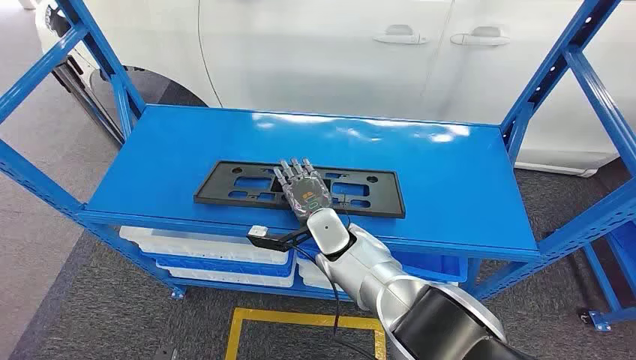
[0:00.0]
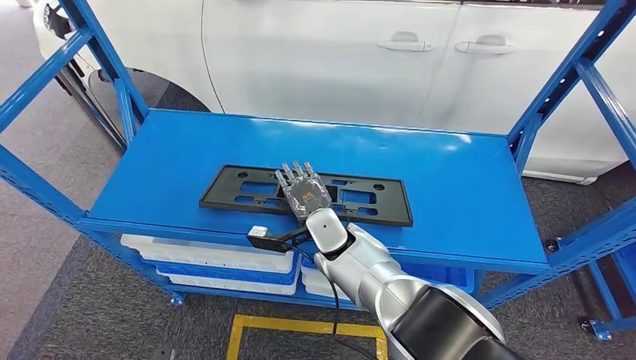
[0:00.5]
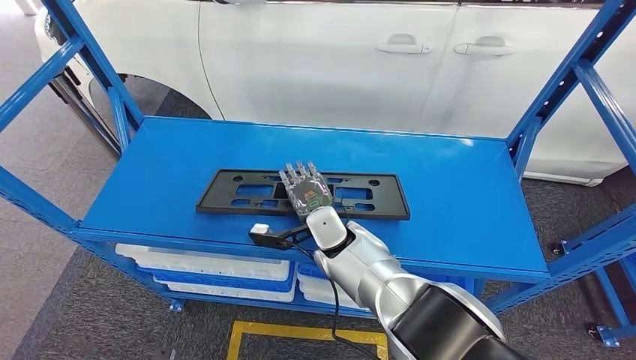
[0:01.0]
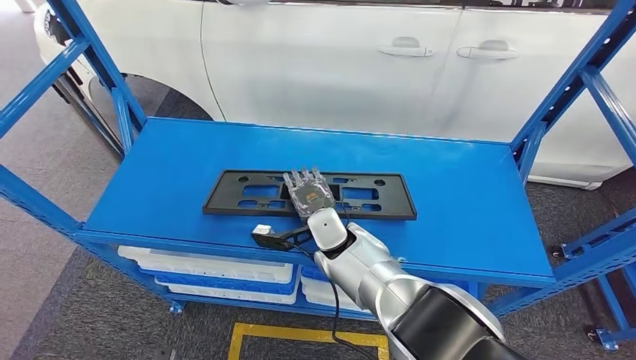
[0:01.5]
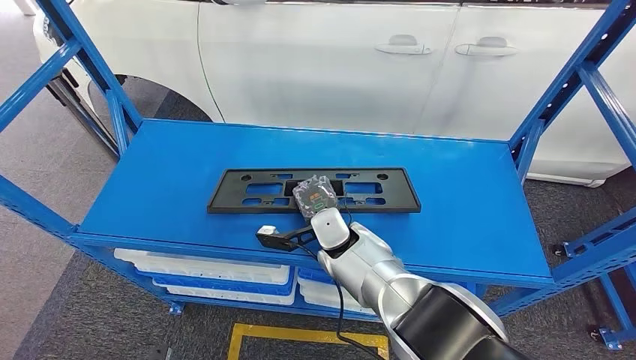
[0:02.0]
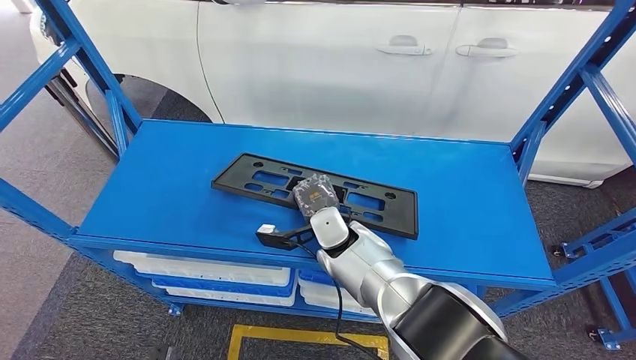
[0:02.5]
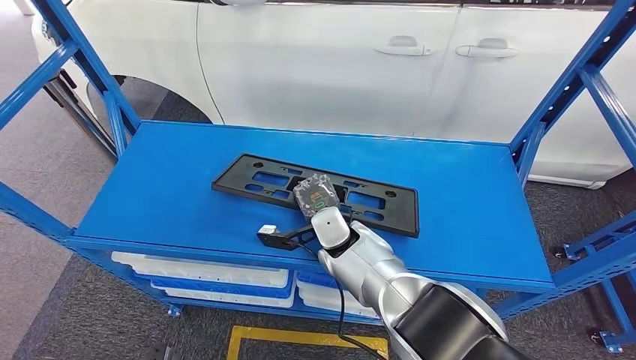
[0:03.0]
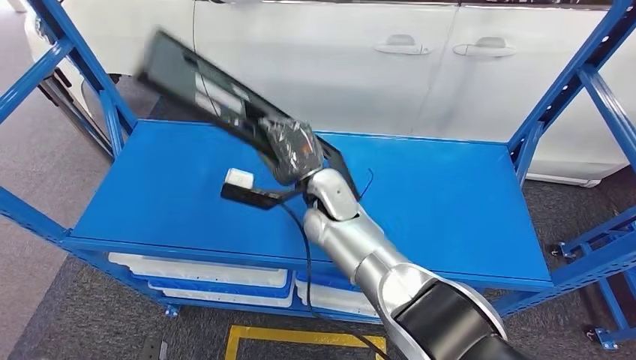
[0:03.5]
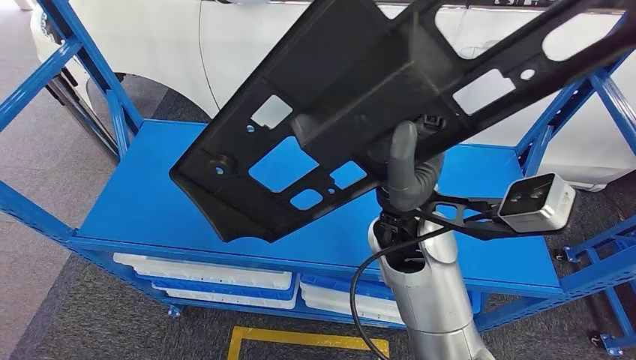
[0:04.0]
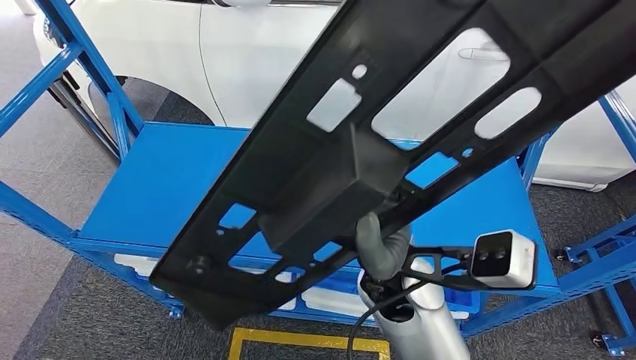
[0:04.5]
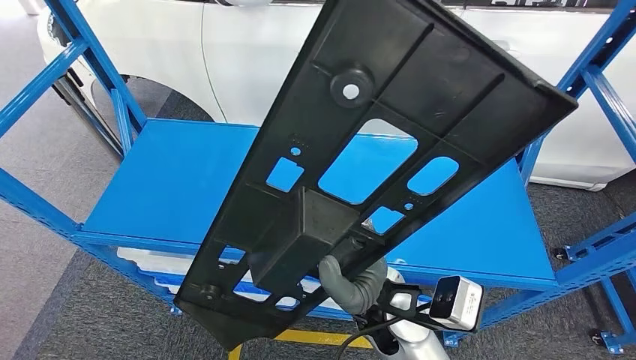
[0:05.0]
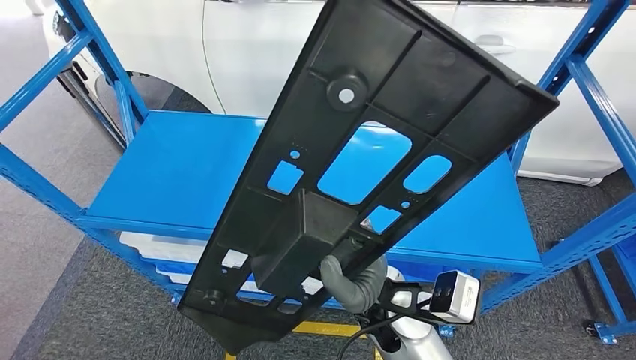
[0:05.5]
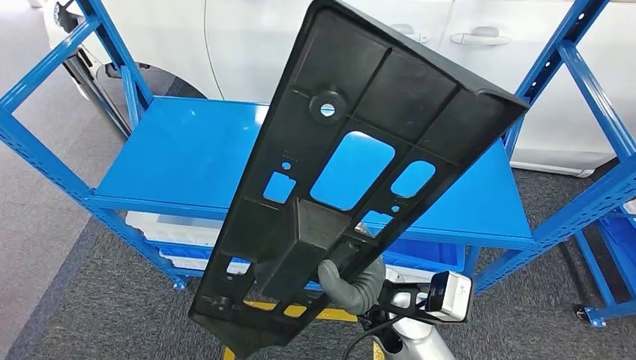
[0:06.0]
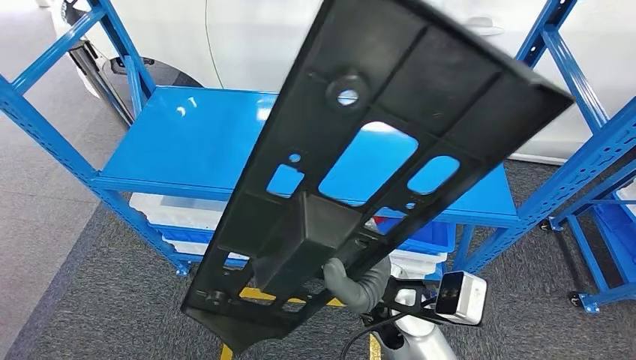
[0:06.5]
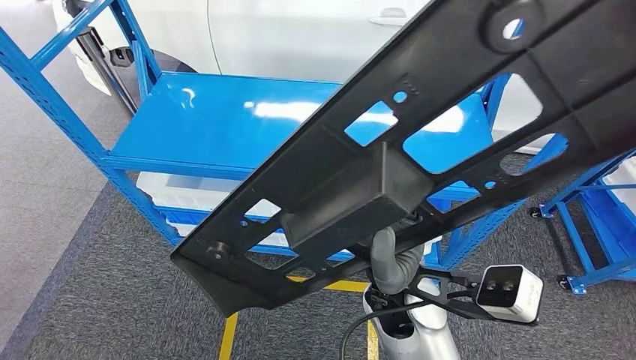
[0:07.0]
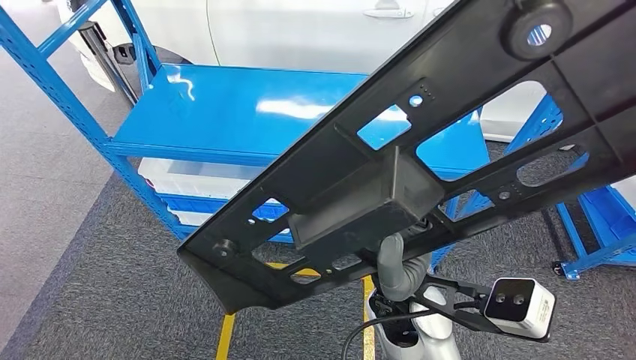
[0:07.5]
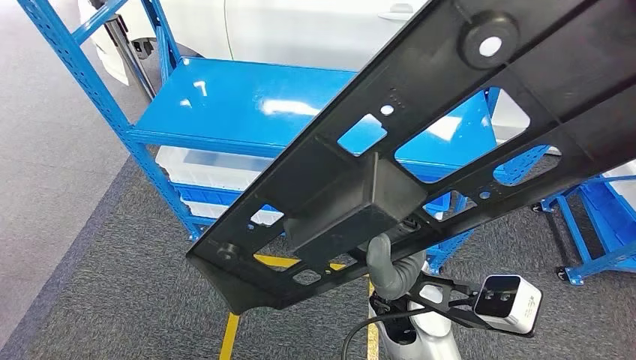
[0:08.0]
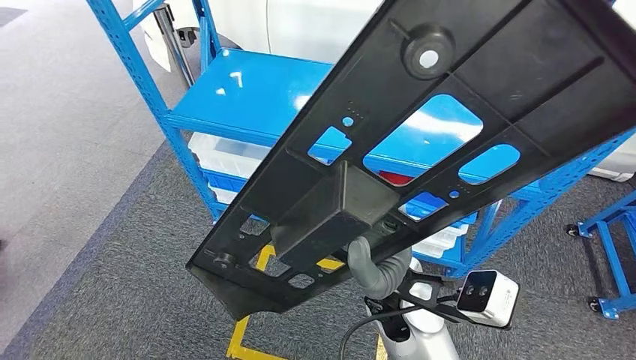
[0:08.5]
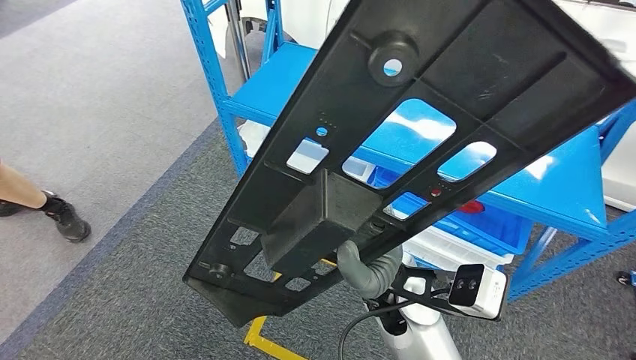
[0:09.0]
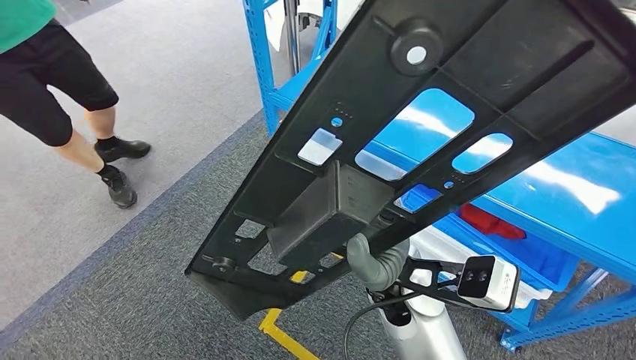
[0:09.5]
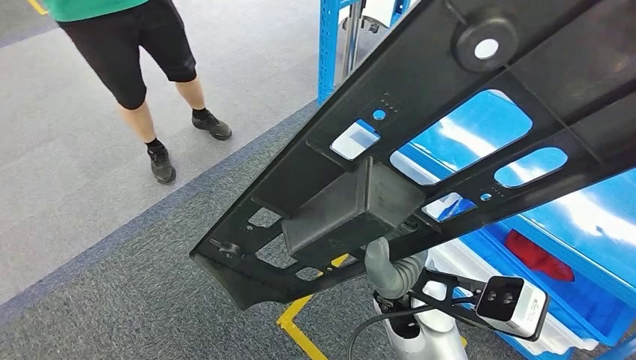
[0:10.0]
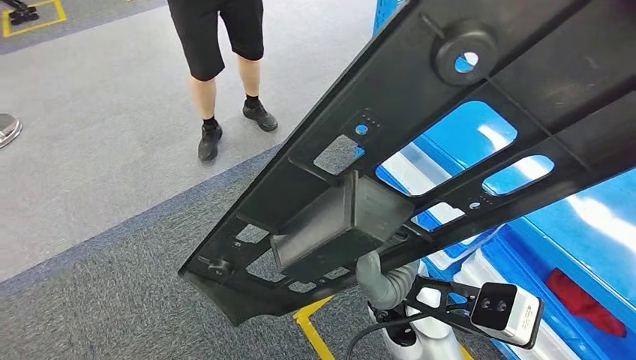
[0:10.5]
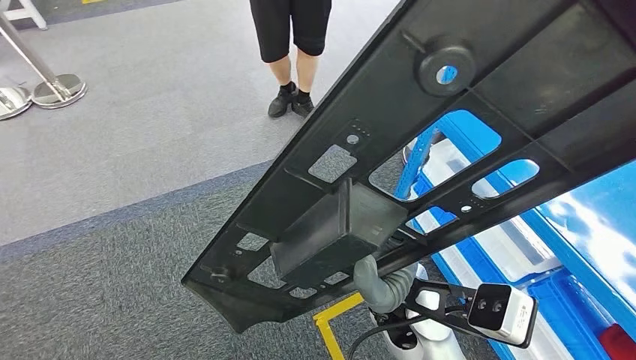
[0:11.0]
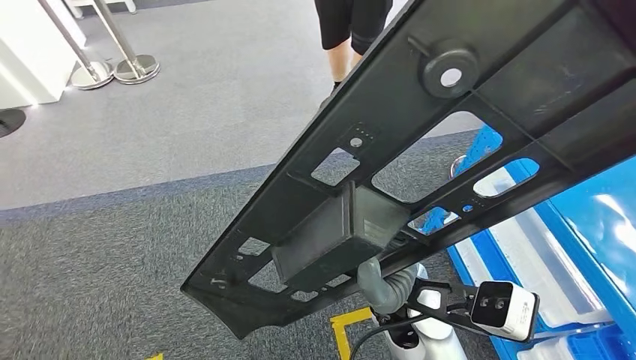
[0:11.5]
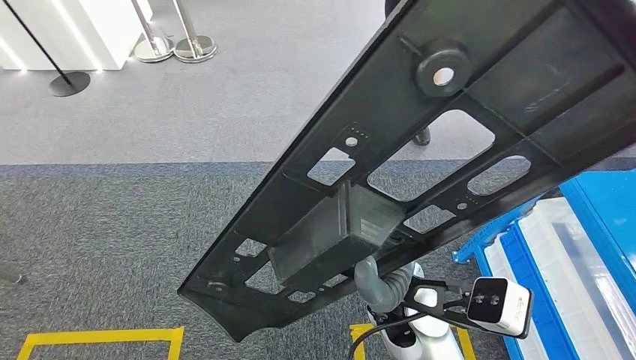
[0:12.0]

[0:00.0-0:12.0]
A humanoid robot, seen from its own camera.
Step, 0:00.0 to 0:05.5: Pick up the large material from the shelf.

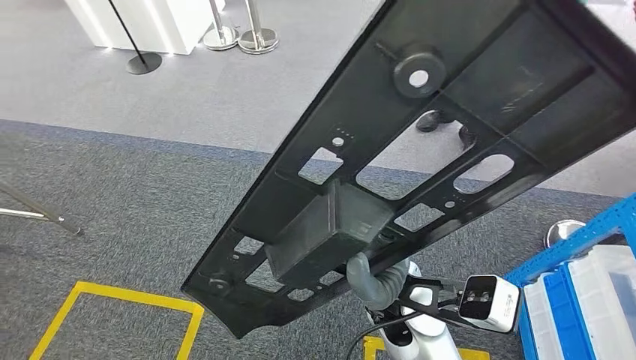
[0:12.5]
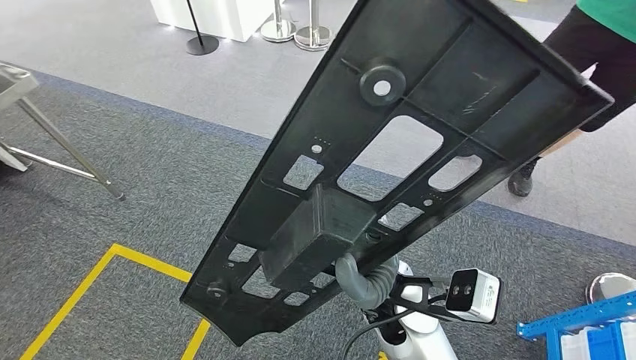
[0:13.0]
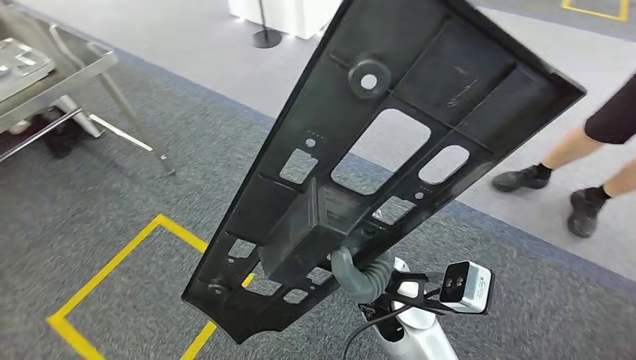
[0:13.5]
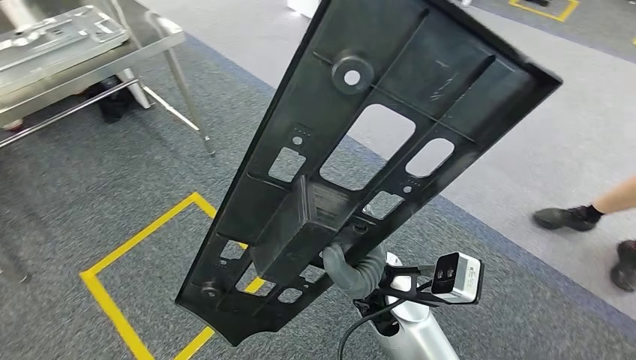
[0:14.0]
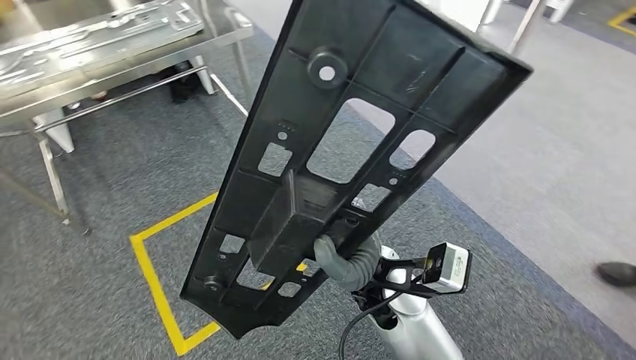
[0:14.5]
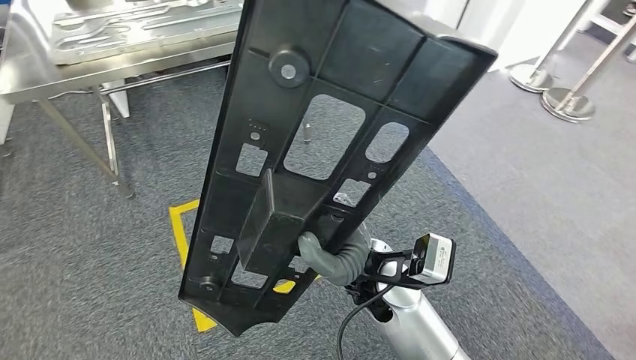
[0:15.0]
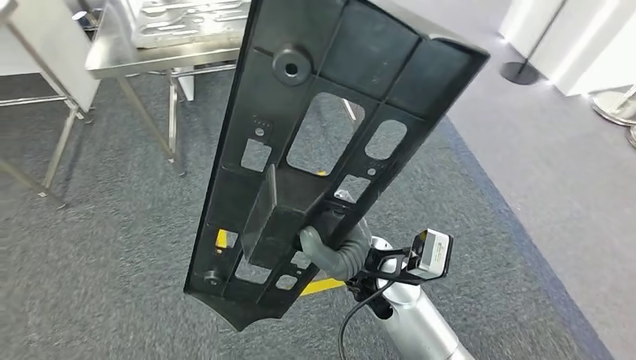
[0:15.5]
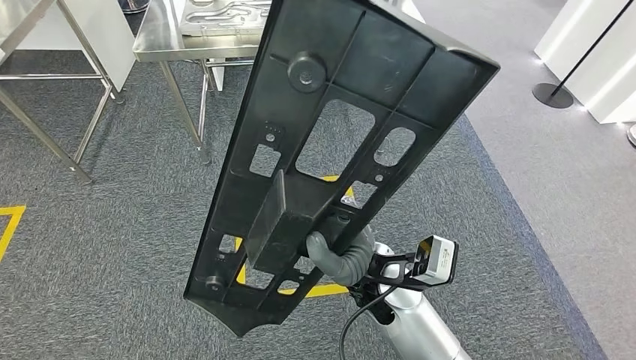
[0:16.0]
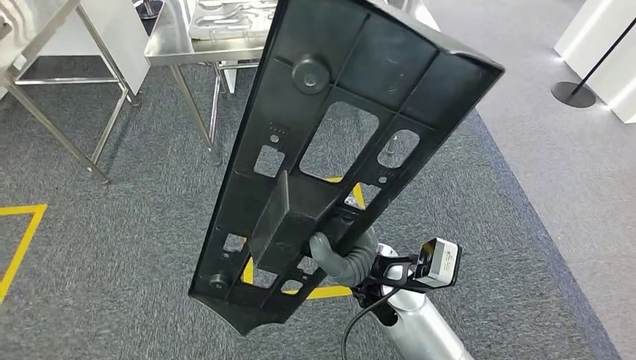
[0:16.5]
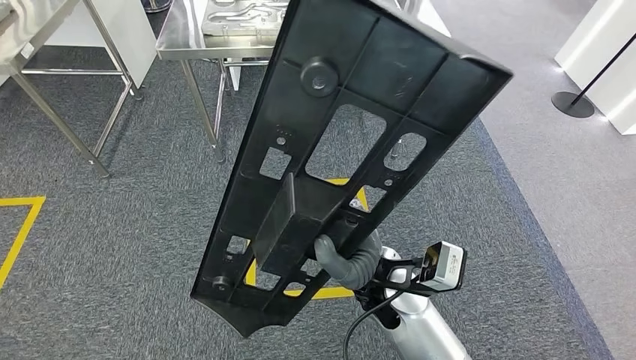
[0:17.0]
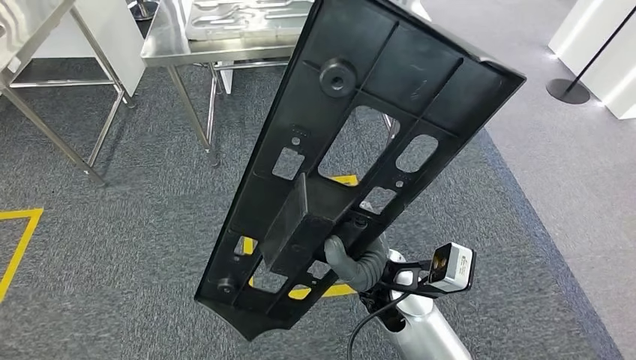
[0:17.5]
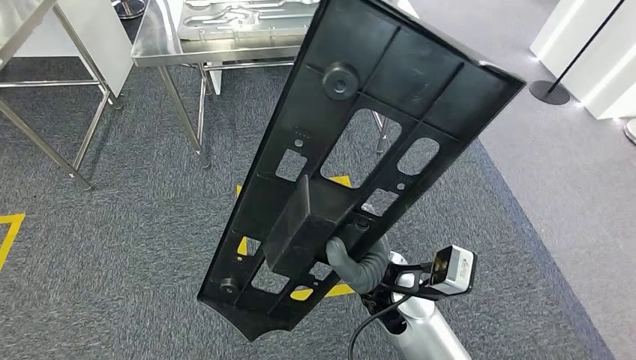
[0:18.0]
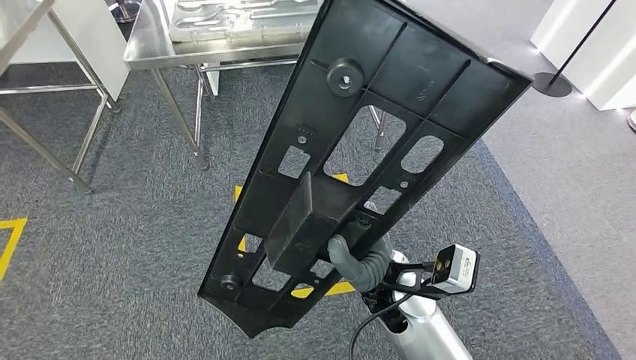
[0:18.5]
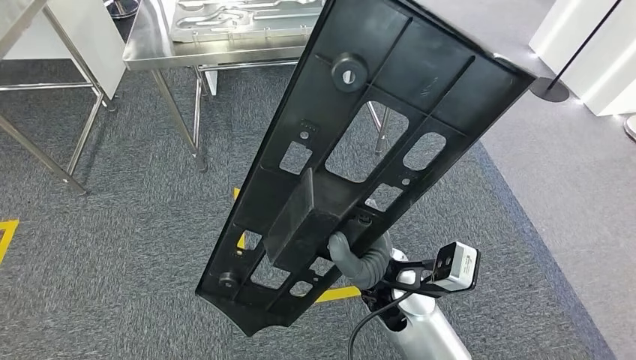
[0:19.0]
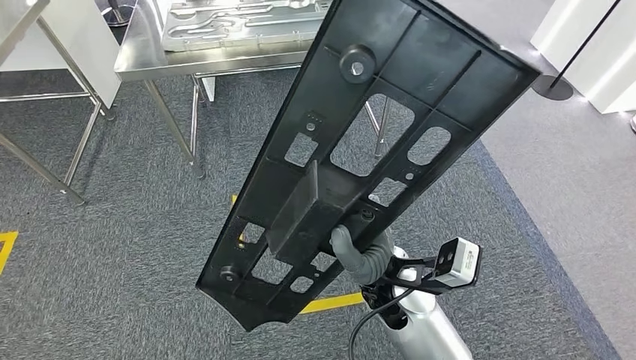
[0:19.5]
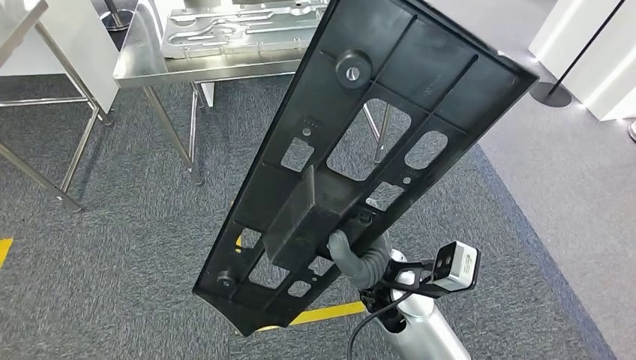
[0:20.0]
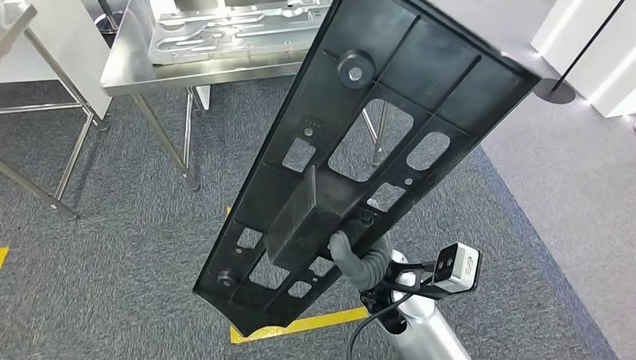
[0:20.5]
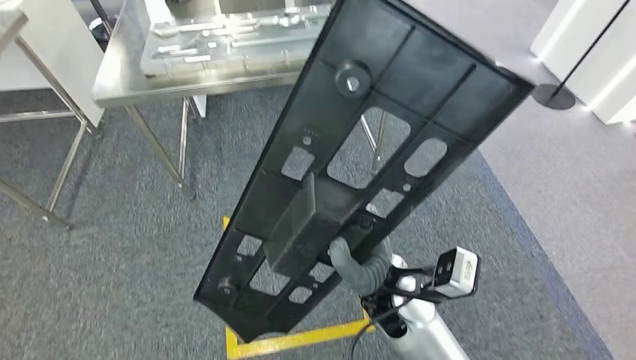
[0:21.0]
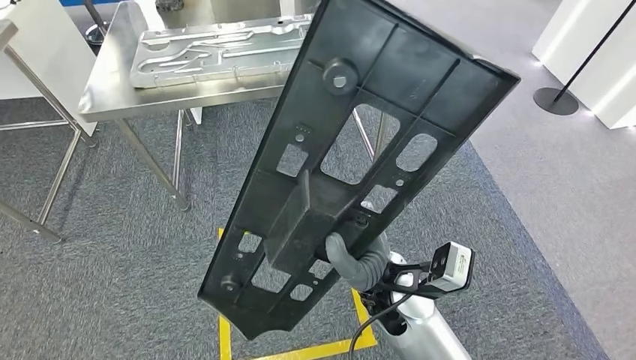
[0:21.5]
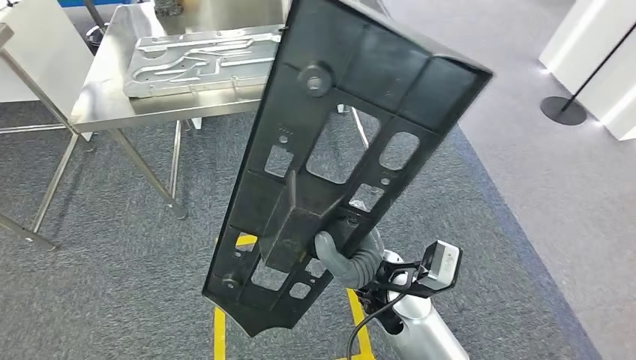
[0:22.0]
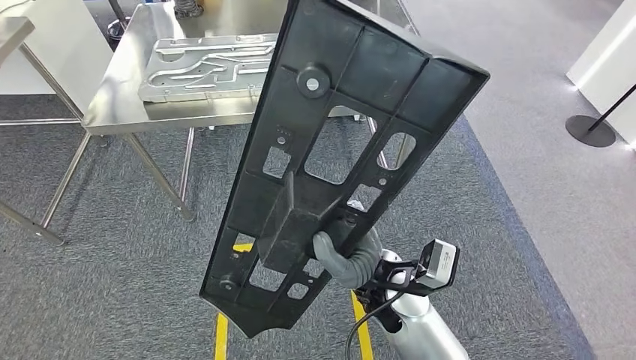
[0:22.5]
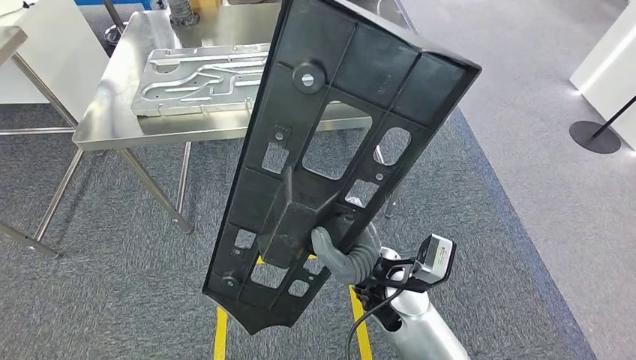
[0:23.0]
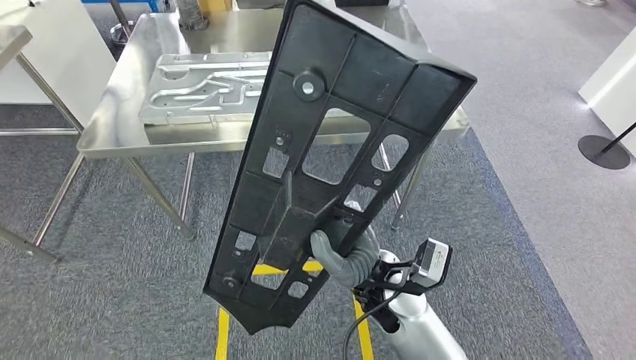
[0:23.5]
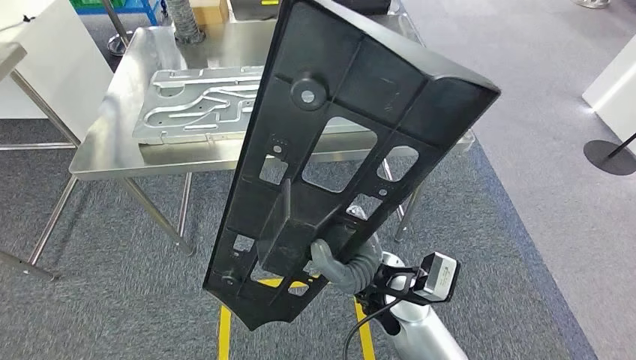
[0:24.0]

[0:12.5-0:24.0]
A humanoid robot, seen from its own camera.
Step, 0:12.5 to 0:23.5: Move the large material to the front of the workbench.
0:18.5 to 0:20.0: Neither hand changes place.
